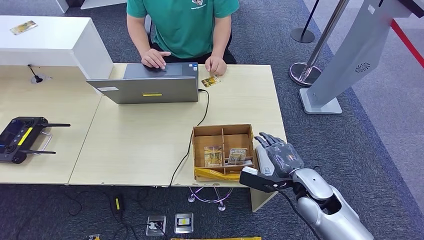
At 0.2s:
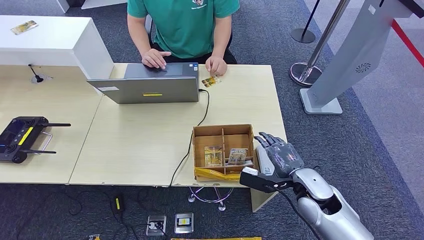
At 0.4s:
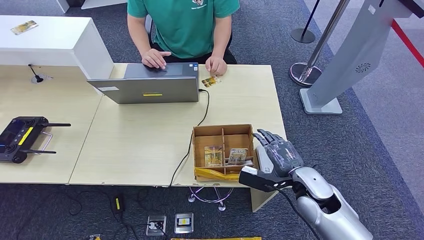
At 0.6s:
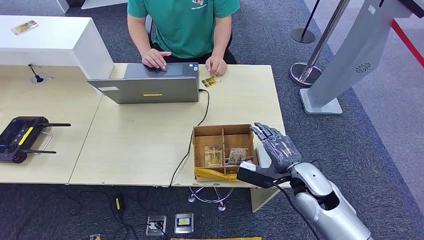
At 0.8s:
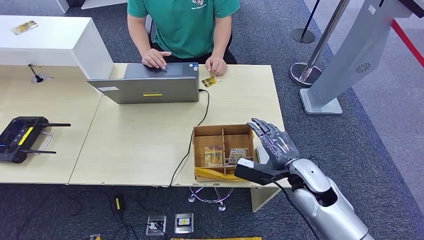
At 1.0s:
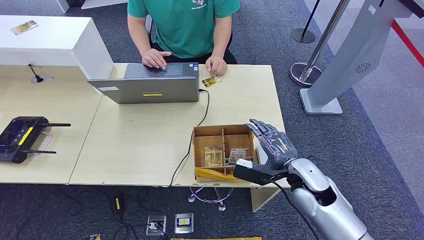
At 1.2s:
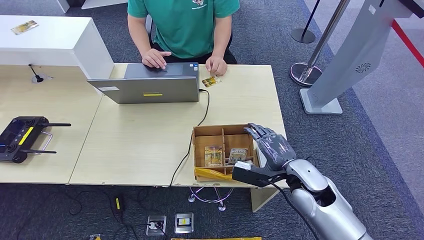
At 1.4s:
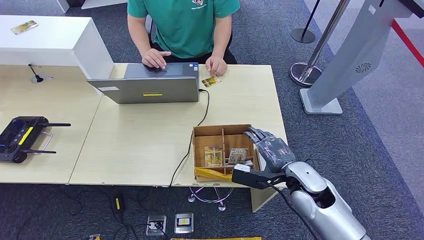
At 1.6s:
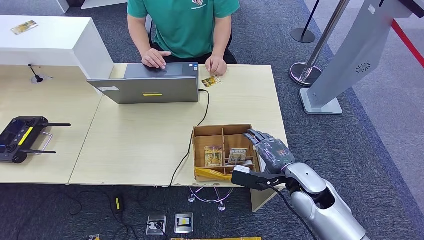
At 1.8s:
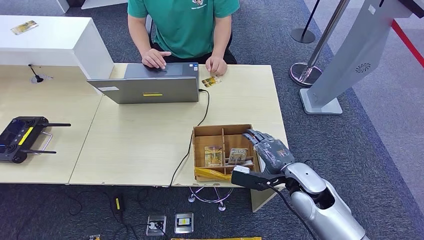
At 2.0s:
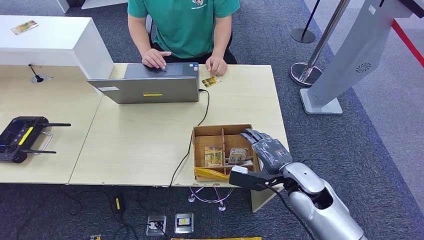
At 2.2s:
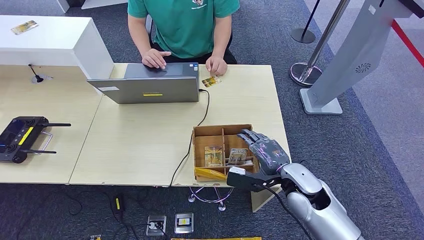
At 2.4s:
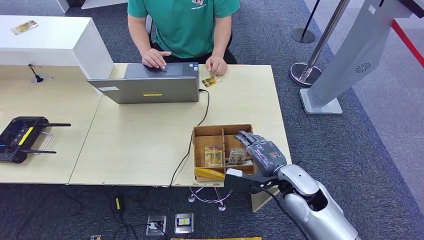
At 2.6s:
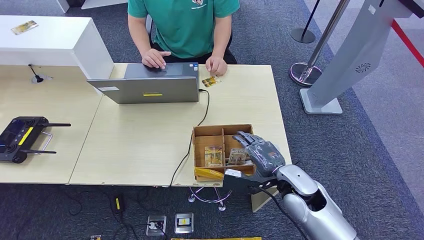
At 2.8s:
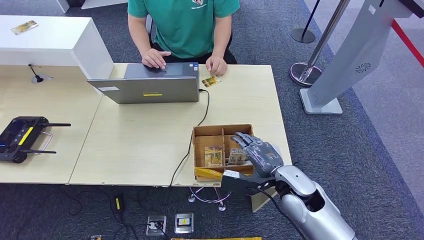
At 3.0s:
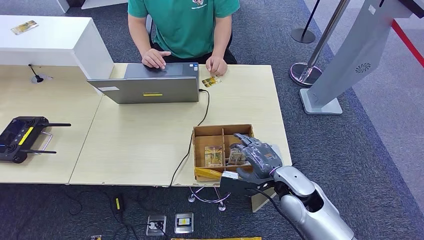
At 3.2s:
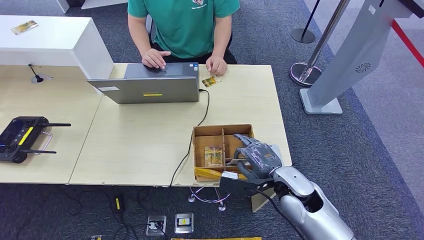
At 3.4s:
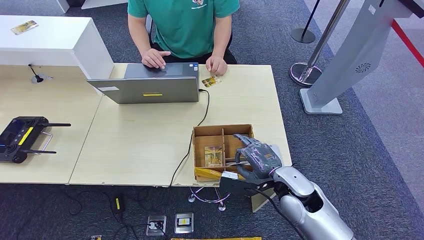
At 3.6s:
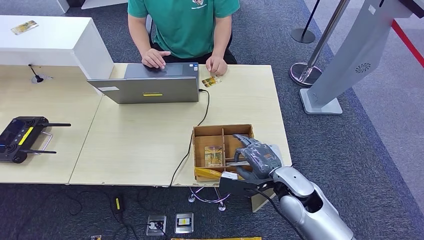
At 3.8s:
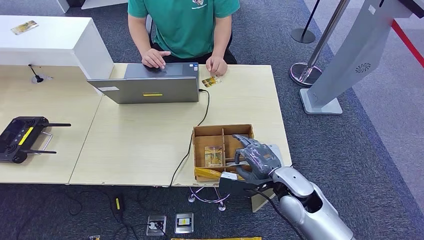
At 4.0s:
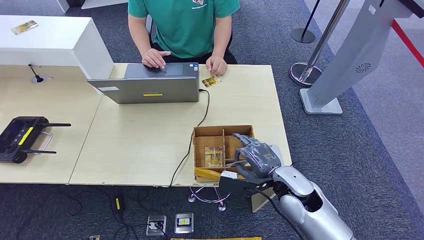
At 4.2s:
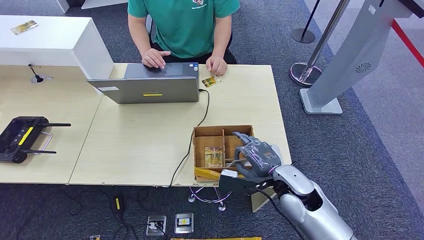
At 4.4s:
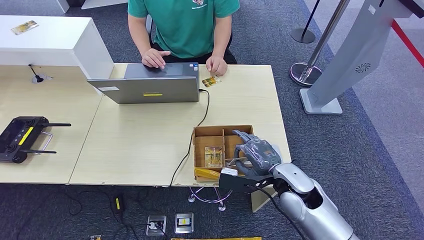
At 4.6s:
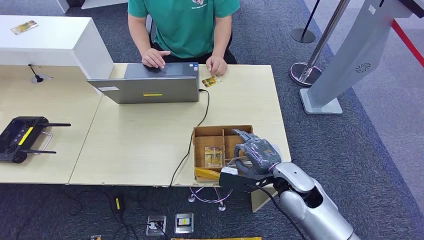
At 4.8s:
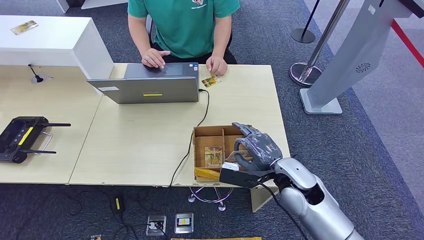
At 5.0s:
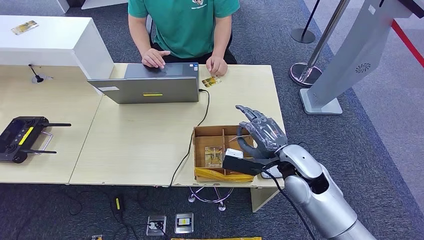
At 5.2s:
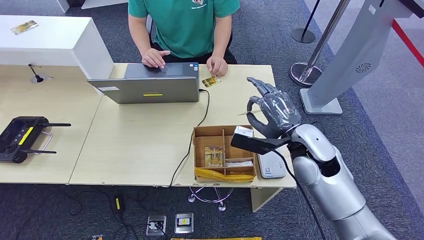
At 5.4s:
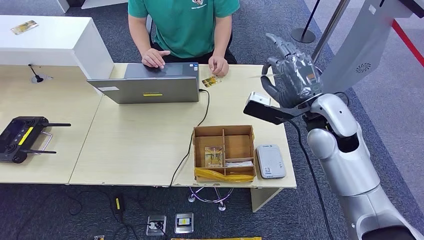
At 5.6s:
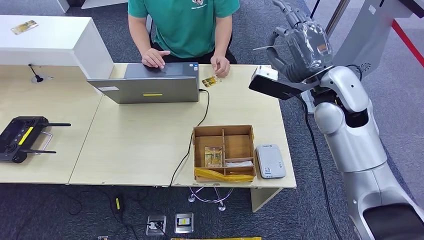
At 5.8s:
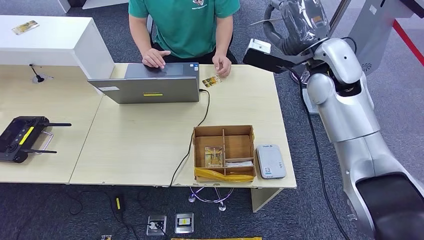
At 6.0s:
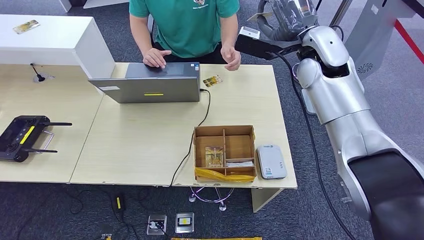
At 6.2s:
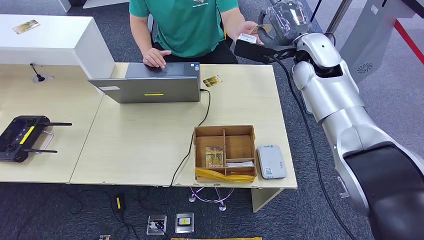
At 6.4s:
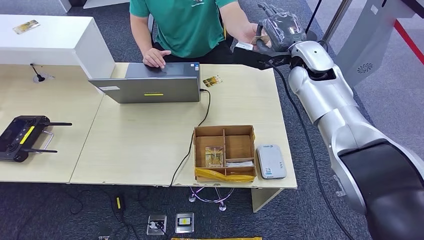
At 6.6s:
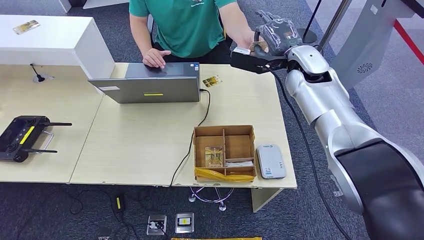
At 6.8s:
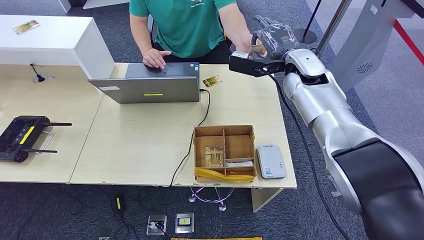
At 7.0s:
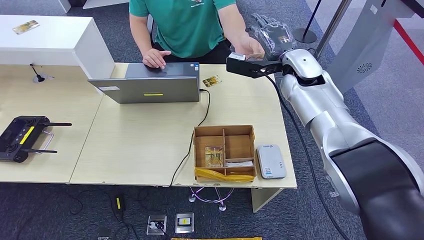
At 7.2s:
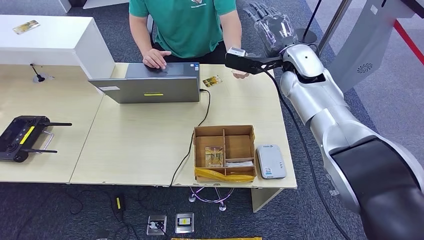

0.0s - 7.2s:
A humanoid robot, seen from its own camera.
Step, 0.0s - 7.2s: Hand the room key to the person.
0.0s - 2.8s: The hands stay close to where they were, moving slightly.
2.8s - 4.4s: Both hands stay put.
5.8s - 7.2s: The right hand shifts approximately 5 cm forward.

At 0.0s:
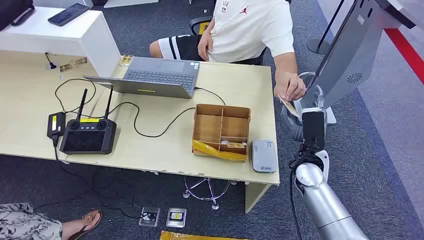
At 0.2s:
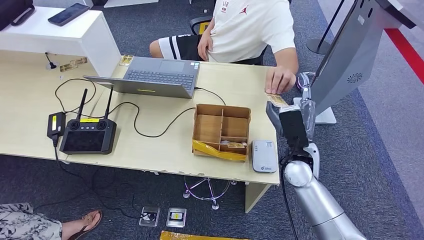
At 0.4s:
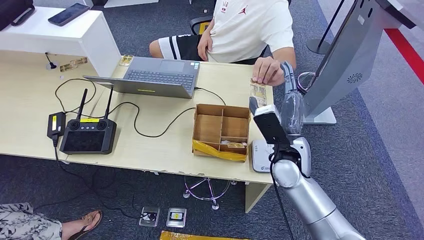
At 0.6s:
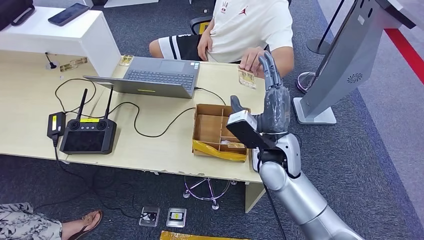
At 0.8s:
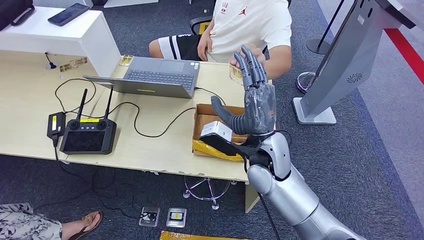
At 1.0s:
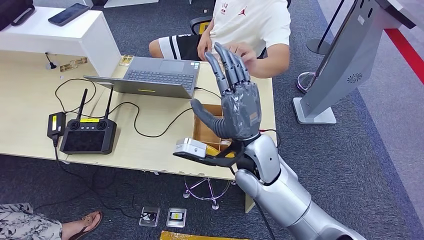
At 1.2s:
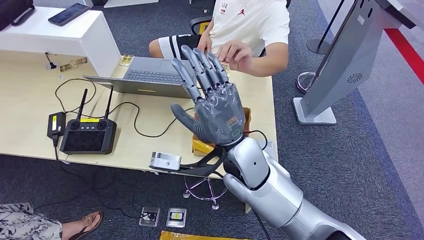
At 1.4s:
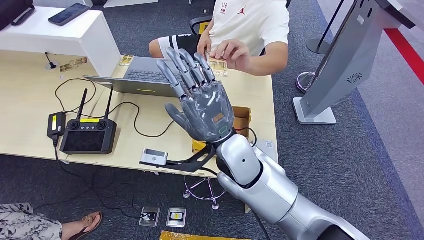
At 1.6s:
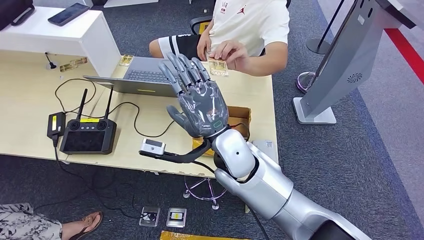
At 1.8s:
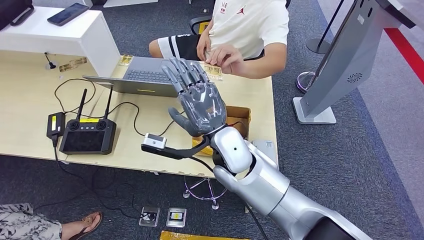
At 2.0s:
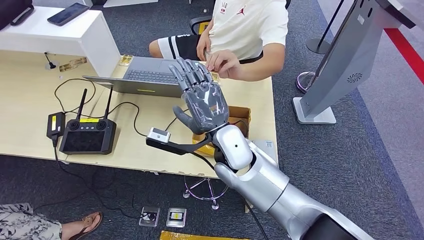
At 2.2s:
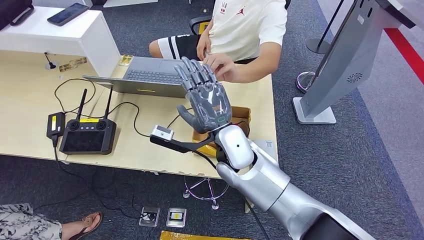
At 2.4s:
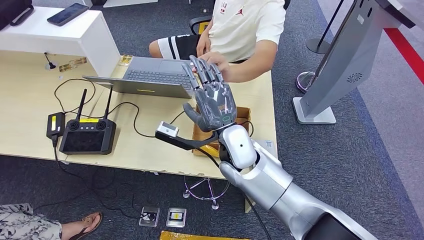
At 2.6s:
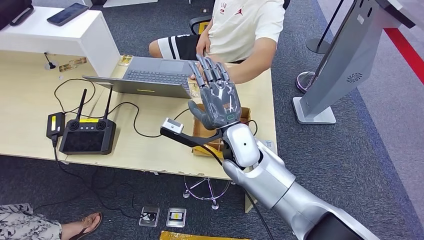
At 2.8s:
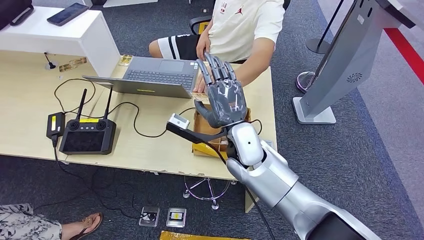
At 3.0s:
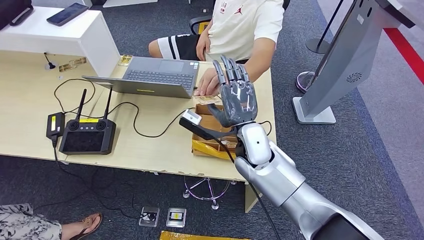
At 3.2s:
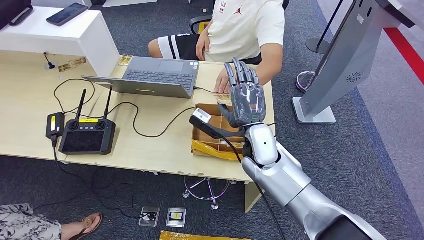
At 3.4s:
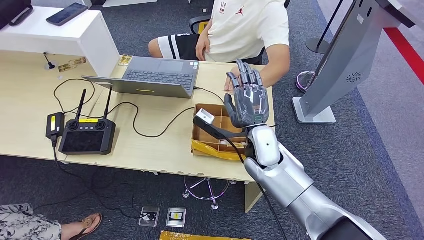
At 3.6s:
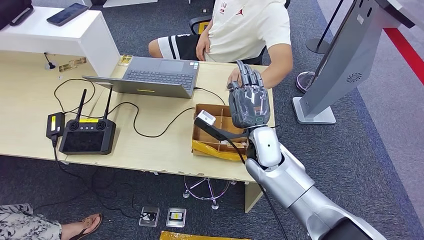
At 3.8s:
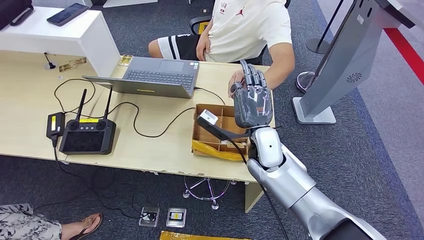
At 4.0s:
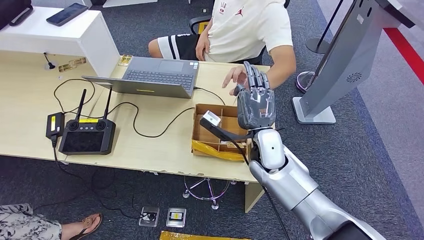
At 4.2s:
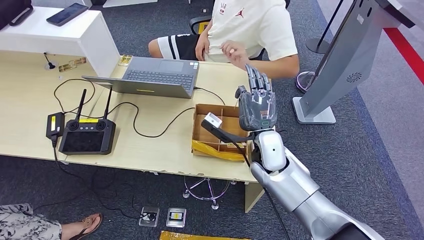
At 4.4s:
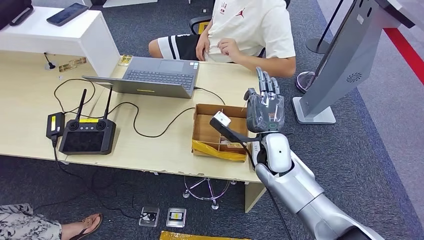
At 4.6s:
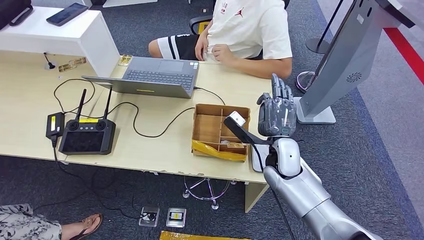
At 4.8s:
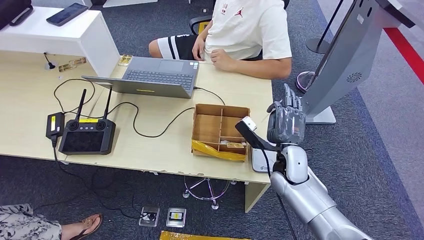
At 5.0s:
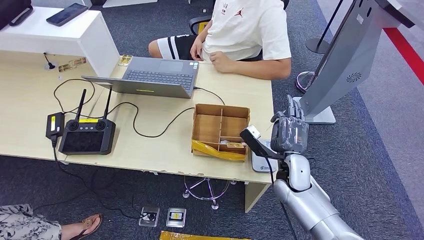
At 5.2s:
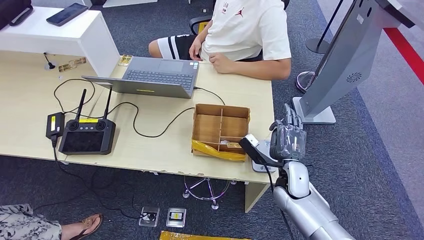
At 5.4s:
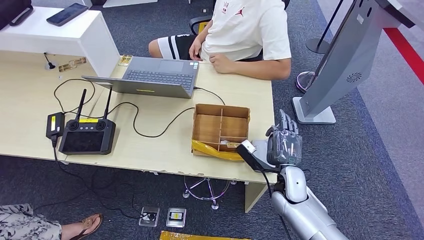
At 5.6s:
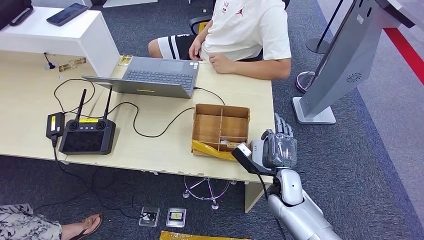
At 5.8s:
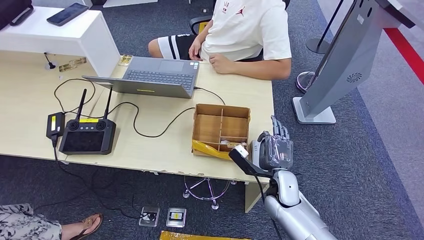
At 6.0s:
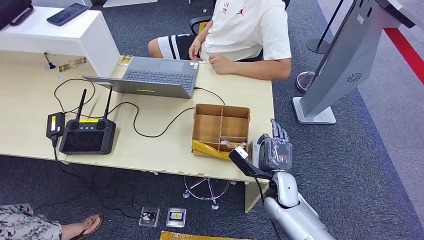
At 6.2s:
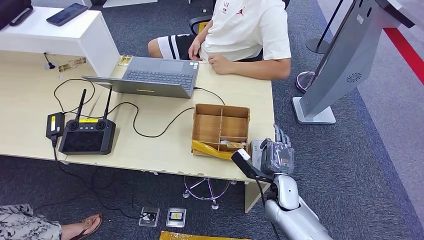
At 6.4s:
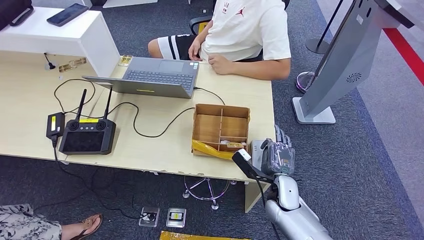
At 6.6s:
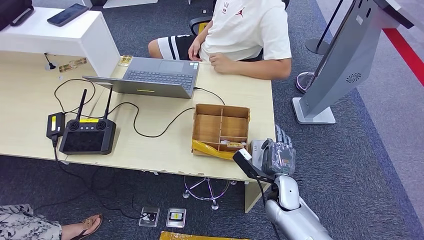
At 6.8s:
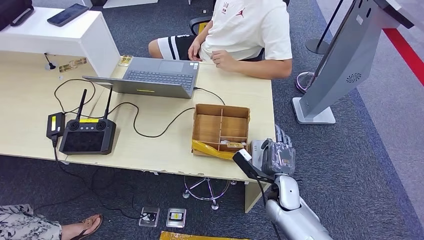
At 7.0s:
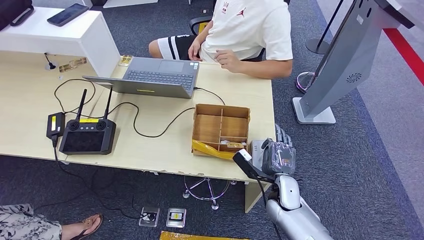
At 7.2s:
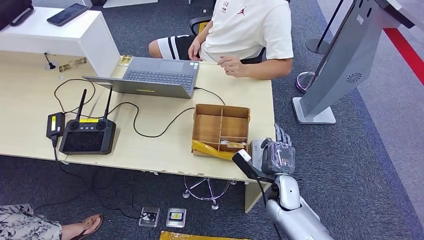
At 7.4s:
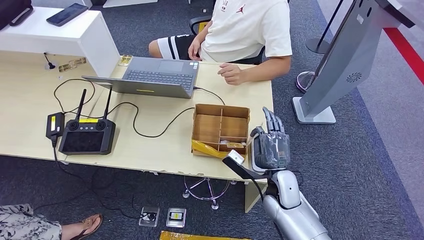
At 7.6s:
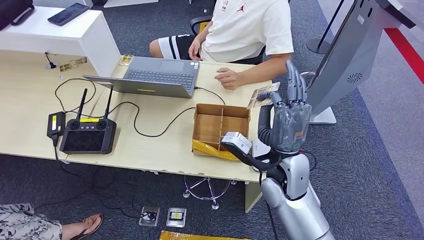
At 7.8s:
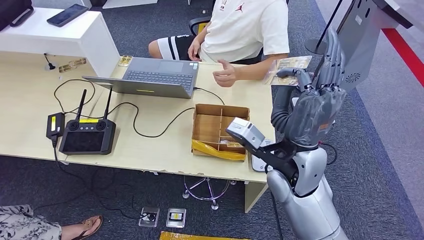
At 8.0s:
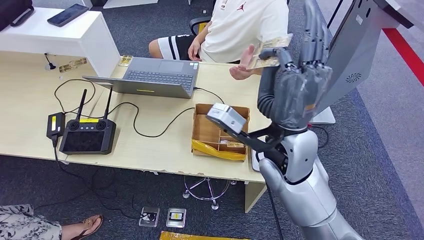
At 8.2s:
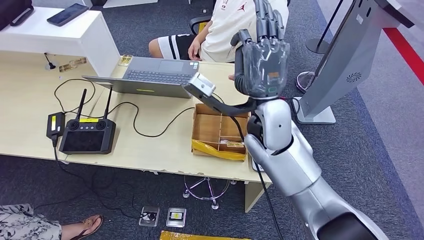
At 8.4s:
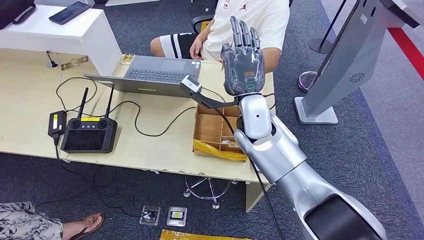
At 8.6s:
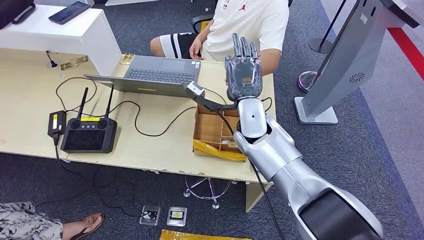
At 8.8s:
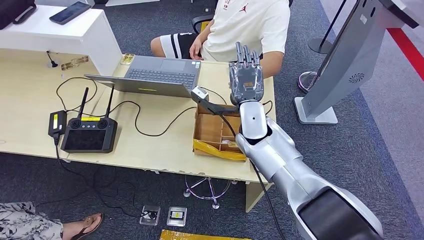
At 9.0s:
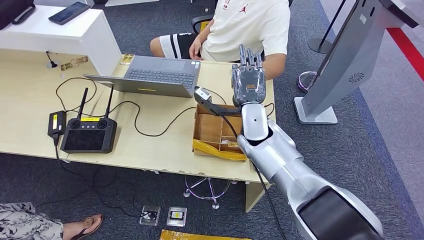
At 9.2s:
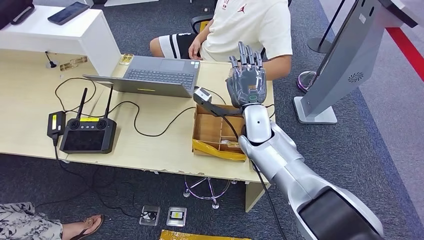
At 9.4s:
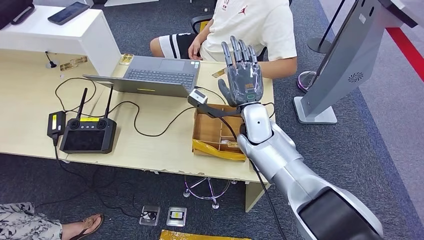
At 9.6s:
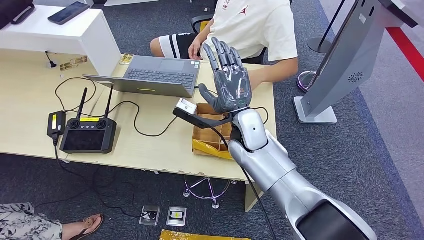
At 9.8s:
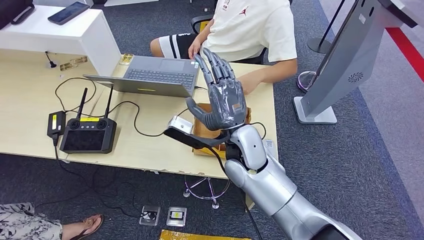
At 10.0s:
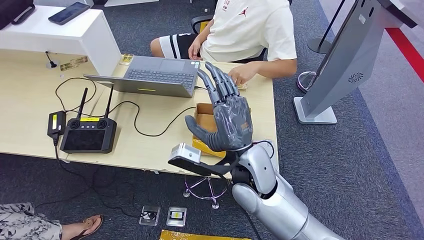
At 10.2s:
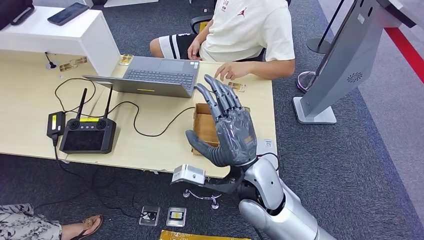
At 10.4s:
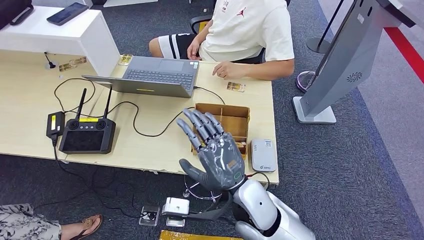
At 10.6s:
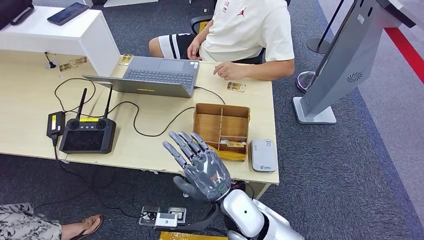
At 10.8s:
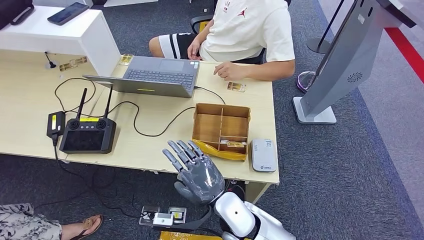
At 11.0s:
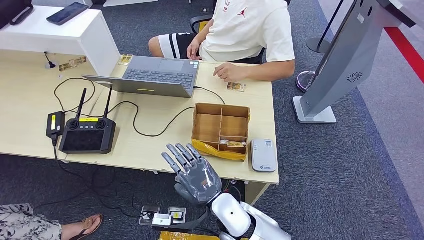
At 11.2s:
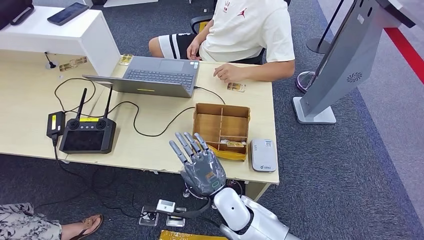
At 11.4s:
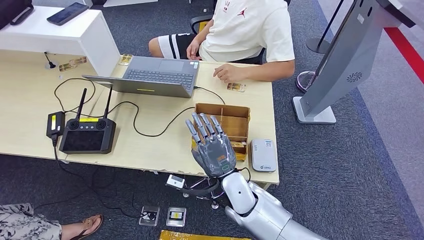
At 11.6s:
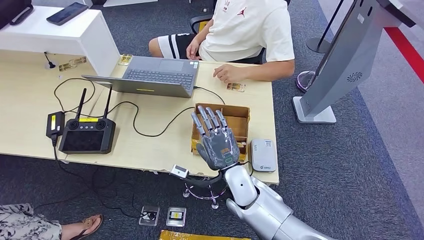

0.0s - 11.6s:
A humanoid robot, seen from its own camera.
Step, 0.0s - 5.8s: Take the ID card from the person's hand.
Step, 6.0s - 8.2s: Place the ID card on the card reader.
Step, 8.4s - 9.8s: Hand the ID card to the person.
1.4s - 2.8s: The right hand moves about 5 cm.
2.8s - 4.4s: The right hand heads to the right, covering some 10 cm.
4.4s - 5.8s: The right hand is displaced downward and backward by about 10 cm.
5.8s - 7.2s: The hands stay close to where they were, moving slightly.
10.2s - 11.6s: The right hand shifts roughly 10 cm downward.
